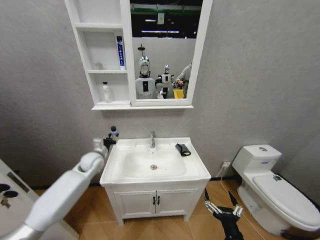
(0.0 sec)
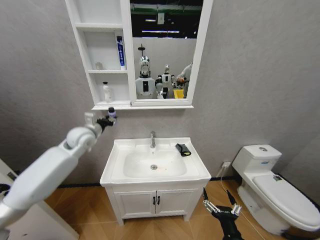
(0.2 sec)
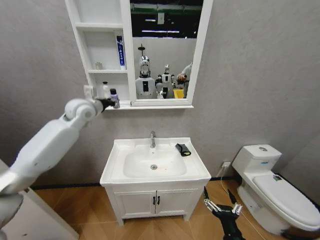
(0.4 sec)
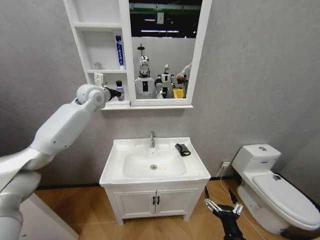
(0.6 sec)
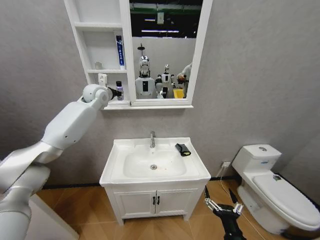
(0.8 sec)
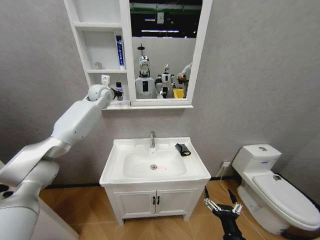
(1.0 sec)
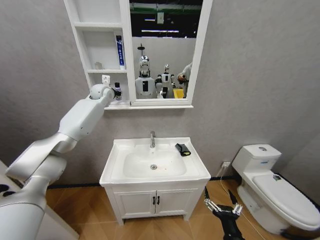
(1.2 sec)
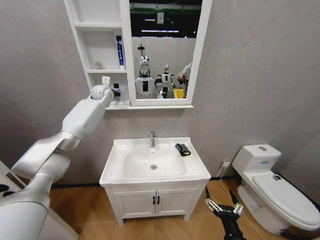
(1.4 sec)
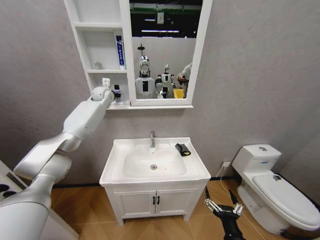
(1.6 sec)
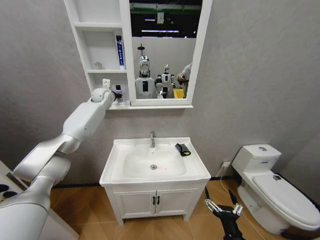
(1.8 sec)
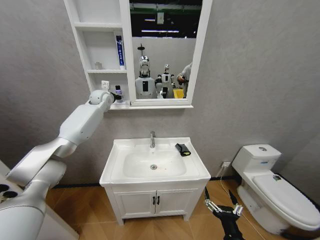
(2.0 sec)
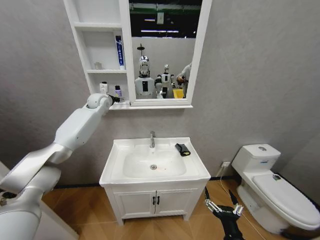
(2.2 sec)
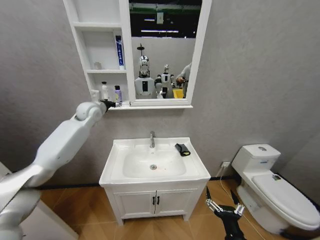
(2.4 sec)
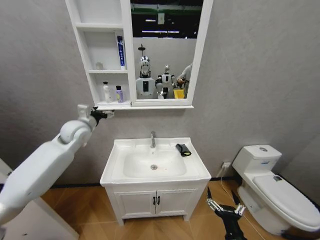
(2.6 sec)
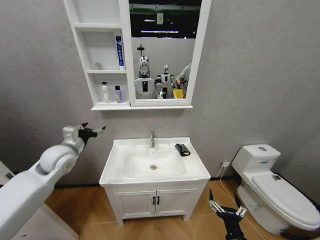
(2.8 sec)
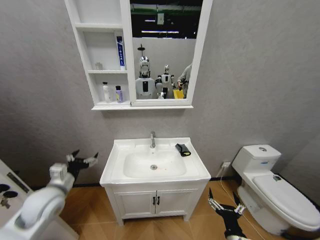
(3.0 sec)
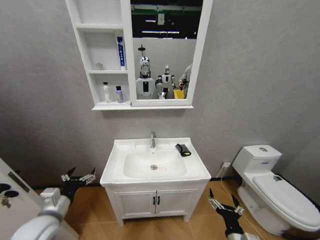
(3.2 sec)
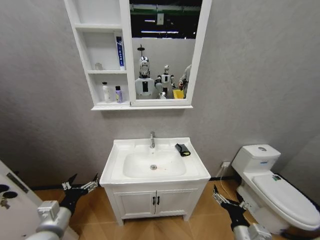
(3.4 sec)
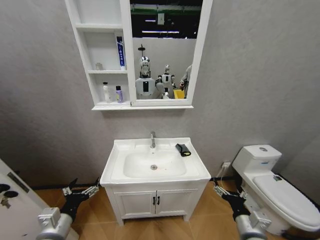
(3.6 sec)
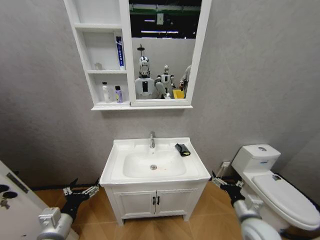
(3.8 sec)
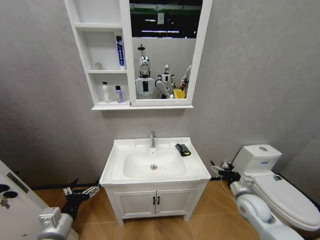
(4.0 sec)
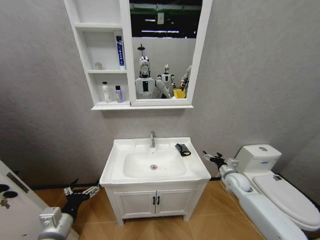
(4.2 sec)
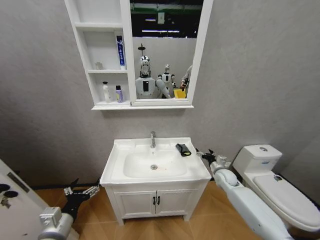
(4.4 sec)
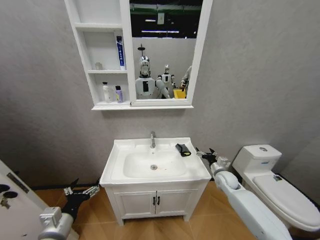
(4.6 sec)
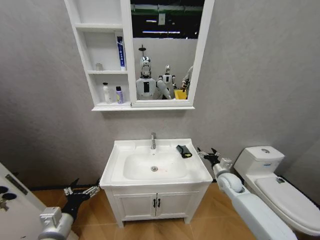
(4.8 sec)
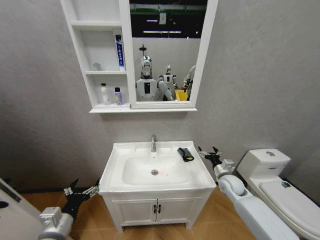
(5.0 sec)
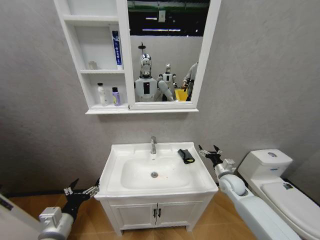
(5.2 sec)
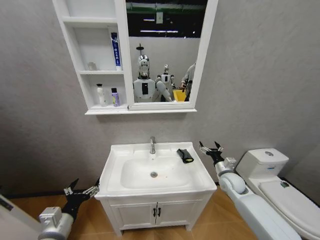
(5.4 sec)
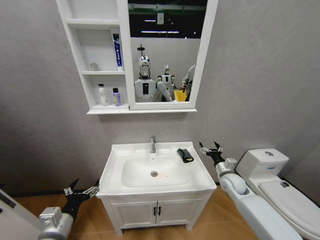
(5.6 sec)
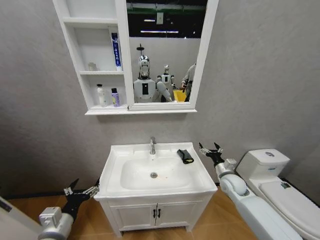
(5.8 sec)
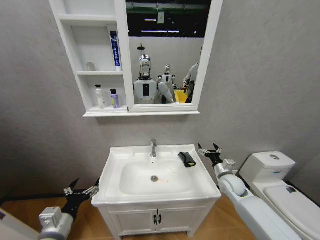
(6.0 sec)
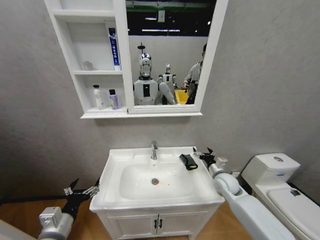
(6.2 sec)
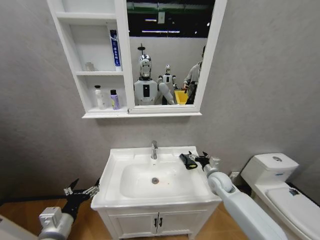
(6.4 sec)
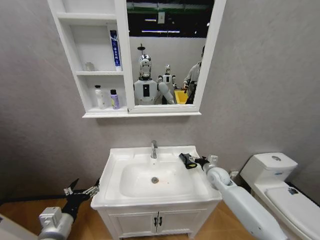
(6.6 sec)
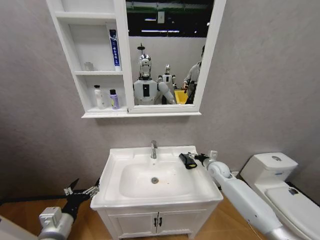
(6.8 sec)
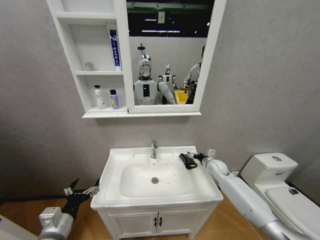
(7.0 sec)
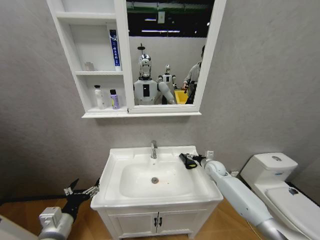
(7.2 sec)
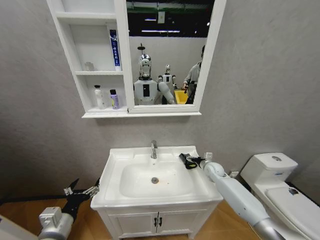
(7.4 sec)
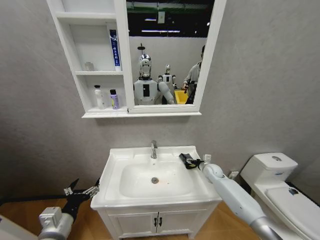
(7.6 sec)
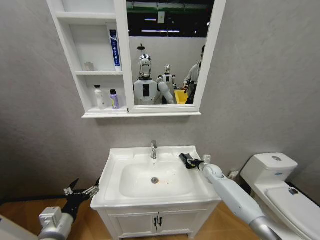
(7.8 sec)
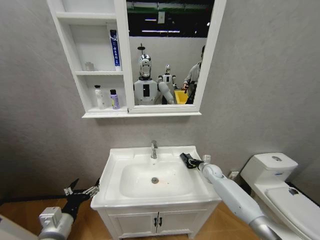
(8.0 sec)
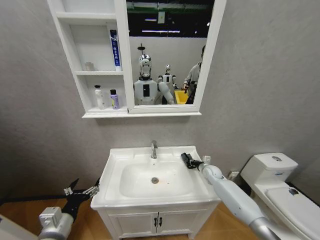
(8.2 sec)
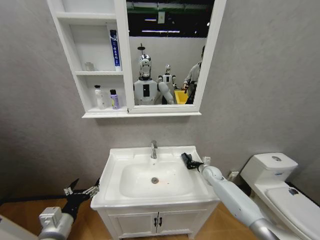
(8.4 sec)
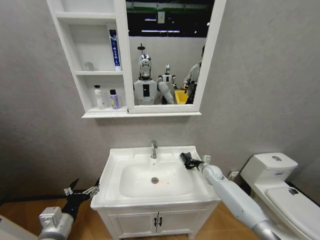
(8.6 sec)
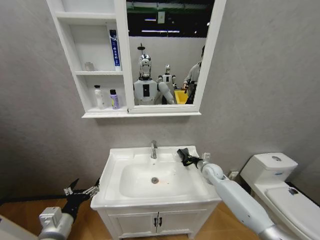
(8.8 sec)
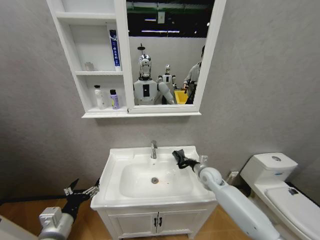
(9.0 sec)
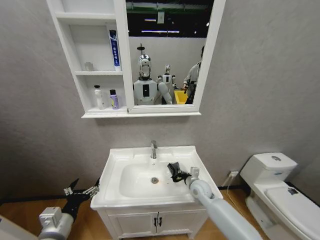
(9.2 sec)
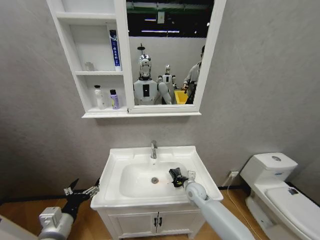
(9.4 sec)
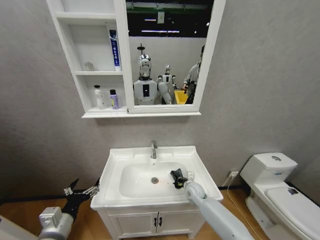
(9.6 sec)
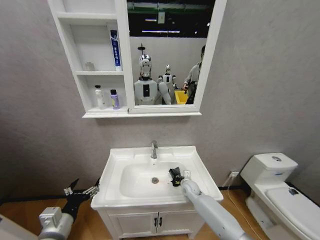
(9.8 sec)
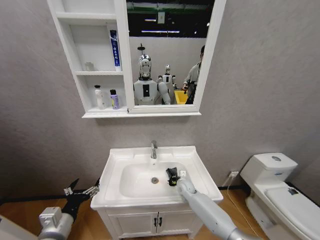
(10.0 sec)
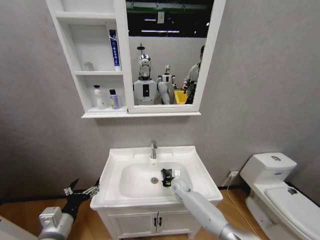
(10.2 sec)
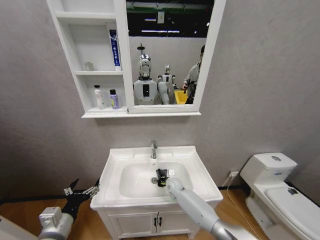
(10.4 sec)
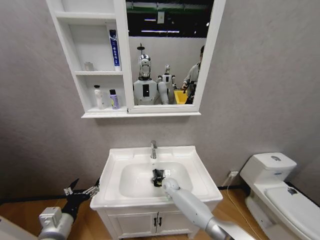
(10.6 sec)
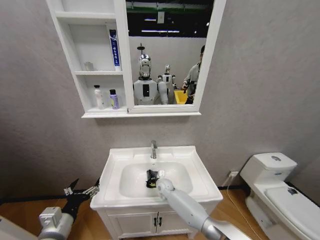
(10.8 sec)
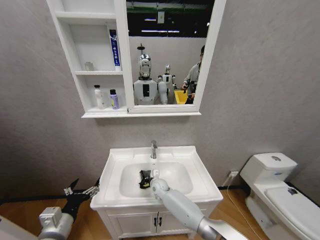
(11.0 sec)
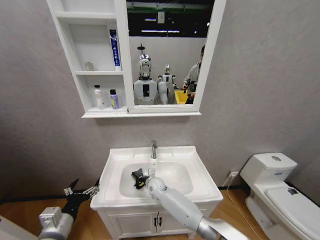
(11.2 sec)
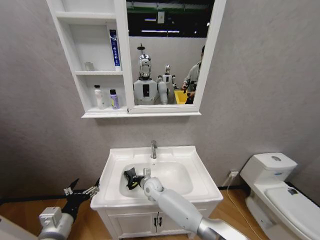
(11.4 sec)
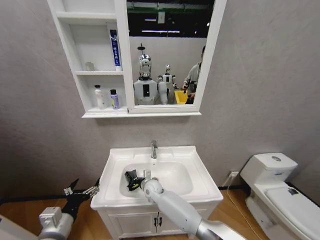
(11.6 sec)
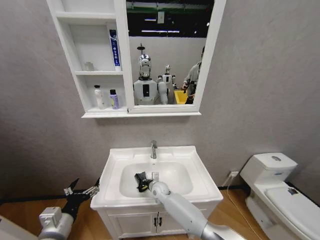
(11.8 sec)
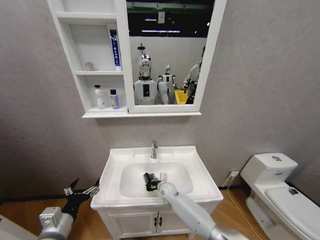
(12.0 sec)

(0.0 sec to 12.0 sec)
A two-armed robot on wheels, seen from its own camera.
Task of the whole recording: Move facial cleanser and shampoo from washbasin to cabinet, then wipe washbasin with towel.
0.0 sec - 1.6 sec: The left gripper travels upward and forward by about 35 cm.
1.6 sec - 3.0 sec: The left gripper shifts about 40 cm backward and downward, and opens.
3.0 sec - 4.4 sec: The left gripper heads backward and downward, covering approximately 15 cm. The right gripper is displaced forward by some 35 cm.
4.4 sec - 6.0 sec: The right gripper shifts approximately 5 cm backward.
6.0 sec - 7.6 sec: The right gripper moves forward and downward, roughly 10 cm.
7.6 sec - 9.0 sec: The right gripper goes about 10 cm backward, to the left and upward, and closes.
9.0 sec - 10.4 sec: The right gripper shifts about 20 cm to the left and downward.
10.4 sec - 12.0 sec: The right gripper travels to the left and back again, roughly 15 cm each way.

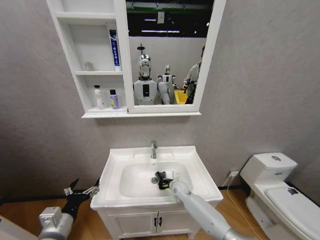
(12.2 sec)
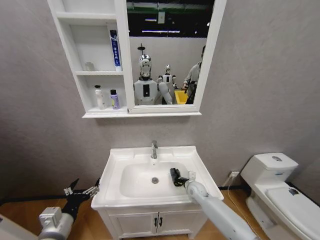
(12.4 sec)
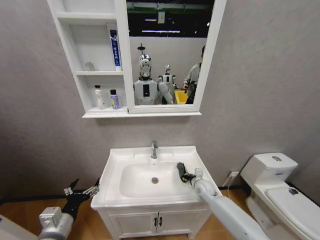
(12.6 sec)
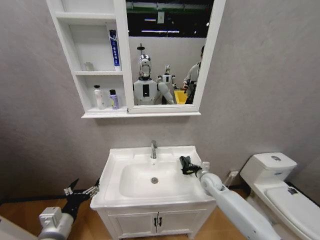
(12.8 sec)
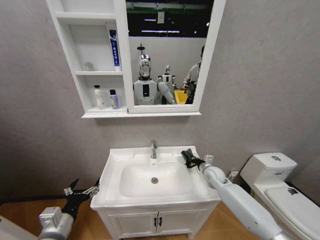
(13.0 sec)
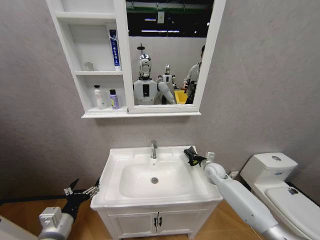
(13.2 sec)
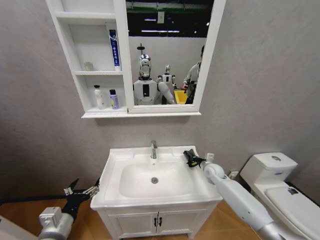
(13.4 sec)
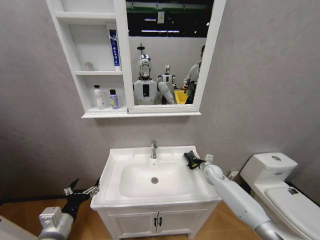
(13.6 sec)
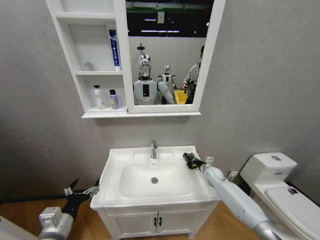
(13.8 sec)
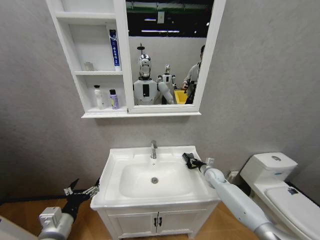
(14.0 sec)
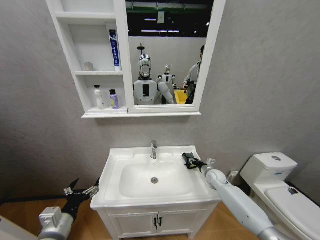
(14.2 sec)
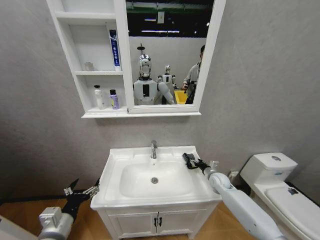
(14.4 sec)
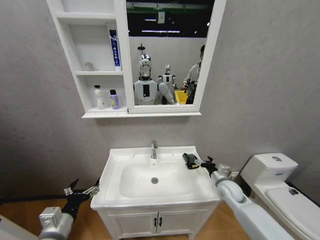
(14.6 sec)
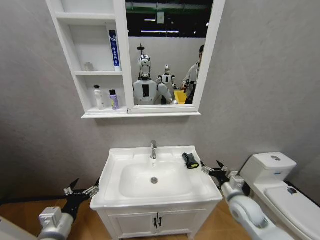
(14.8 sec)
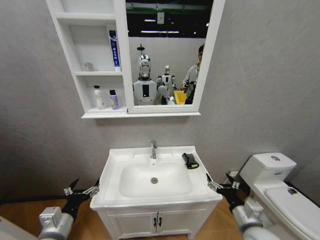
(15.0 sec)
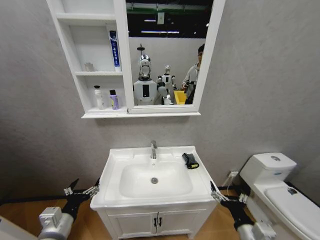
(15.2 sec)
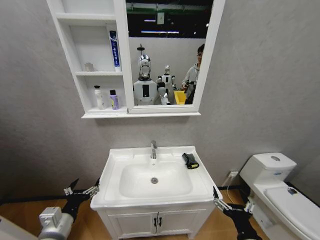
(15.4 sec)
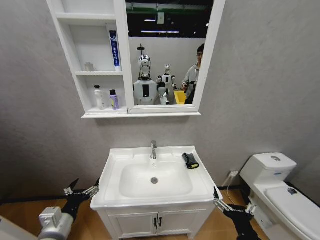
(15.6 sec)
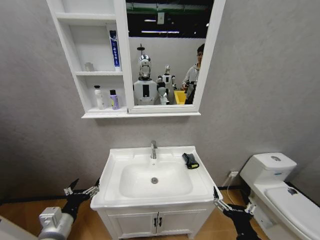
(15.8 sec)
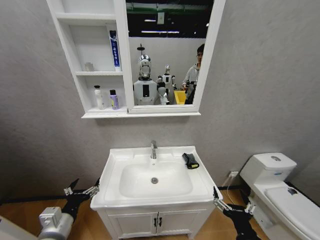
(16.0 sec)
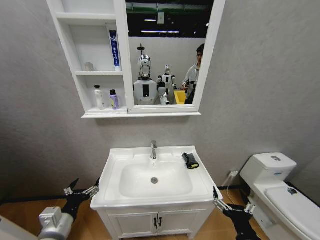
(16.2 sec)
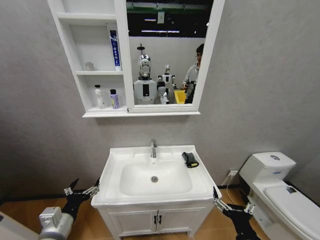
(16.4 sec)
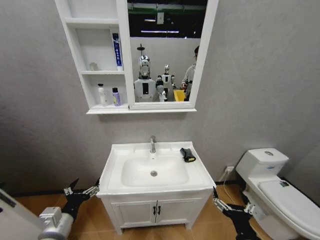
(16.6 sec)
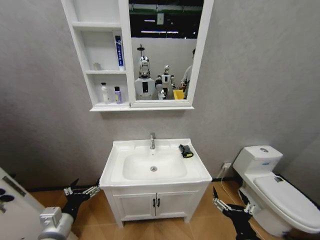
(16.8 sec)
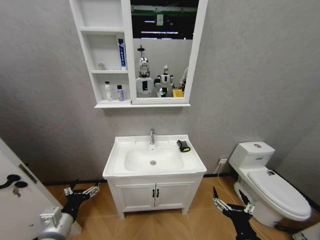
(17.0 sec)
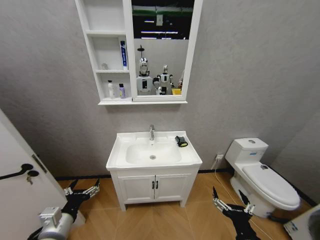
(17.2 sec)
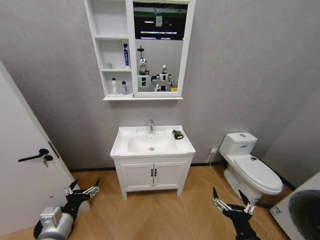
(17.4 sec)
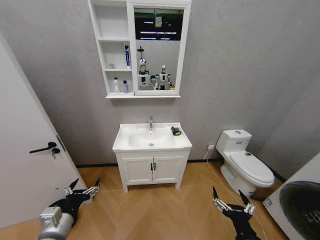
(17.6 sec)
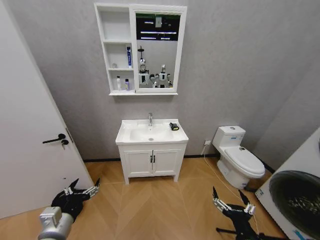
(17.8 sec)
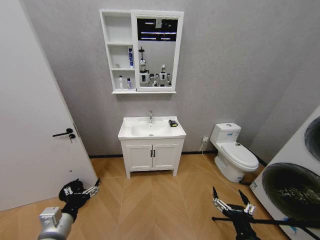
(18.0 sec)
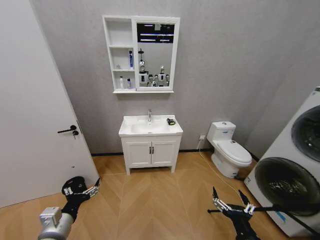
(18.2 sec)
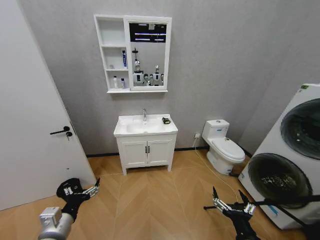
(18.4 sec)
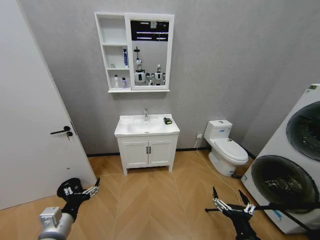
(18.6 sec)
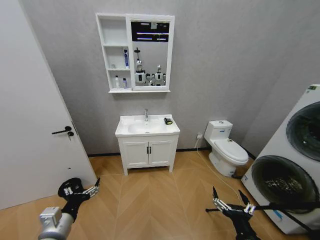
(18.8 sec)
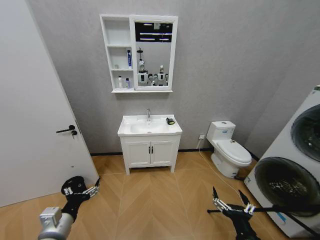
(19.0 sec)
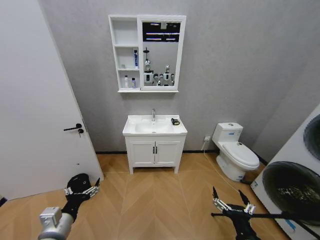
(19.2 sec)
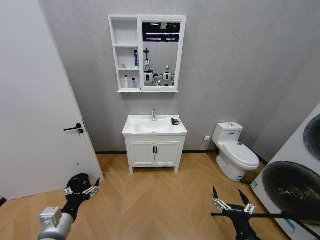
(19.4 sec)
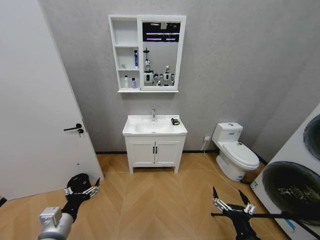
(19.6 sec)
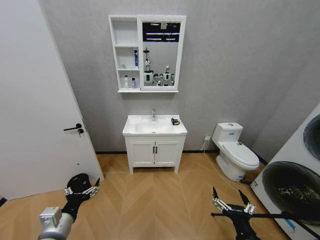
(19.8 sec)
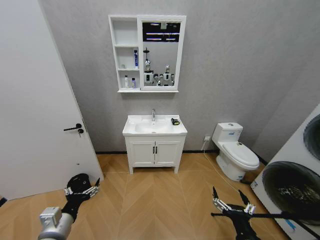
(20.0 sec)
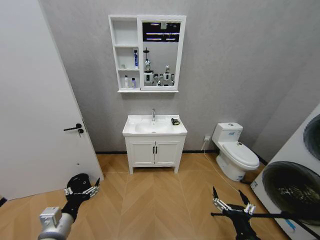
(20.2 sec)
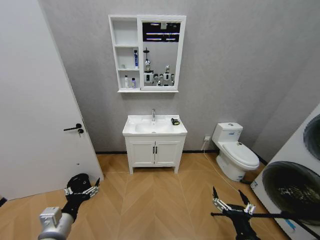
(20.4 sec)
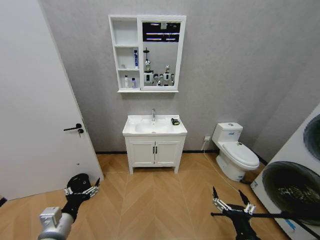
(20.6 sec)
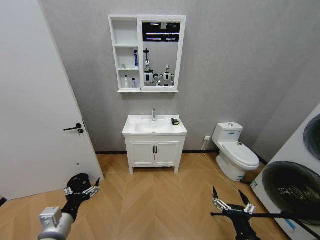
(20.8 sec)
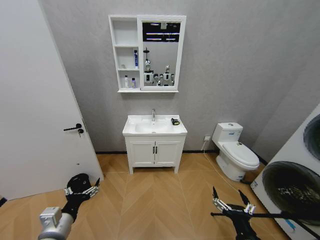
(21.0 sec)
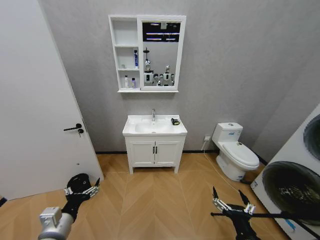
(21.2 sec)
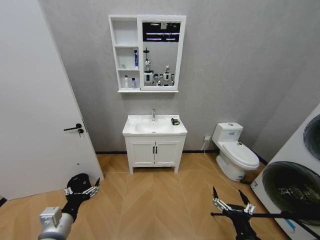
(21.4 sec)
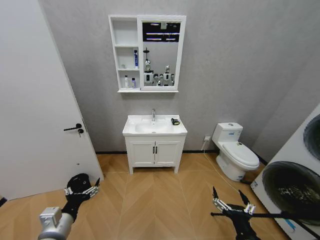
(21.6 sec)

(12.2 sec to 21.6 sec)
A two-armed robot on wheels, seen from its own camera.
Task of the whole recording: Move facial cleanser and shampoo from washbasin to cabinet, then wipe washbasin with towel.
12.2 sec - 13.8 sec: The right gripper goes about 20 cm to the right.
13.8 sec - 15.4 sec: The right gripper shifts approximately 40 cm backward, and opens its fingers.
20.0 sec - 21.6 sec: Neither gripper changes place.
